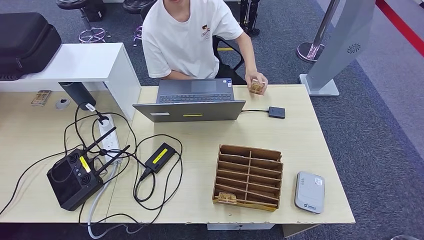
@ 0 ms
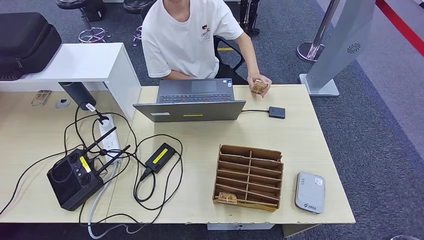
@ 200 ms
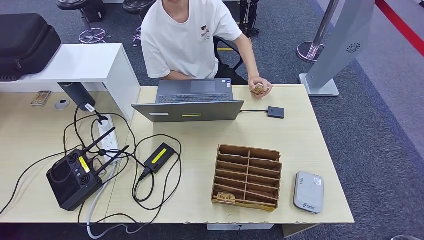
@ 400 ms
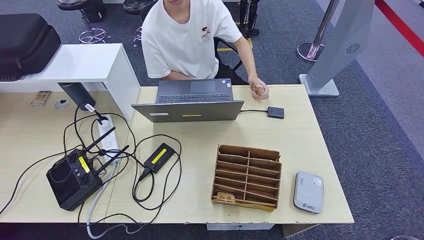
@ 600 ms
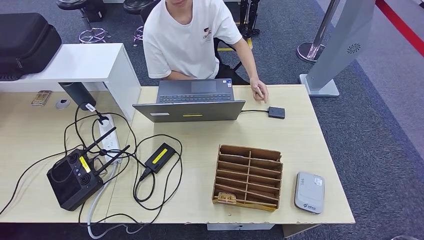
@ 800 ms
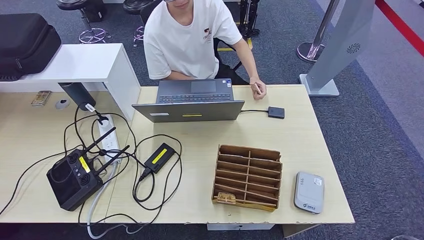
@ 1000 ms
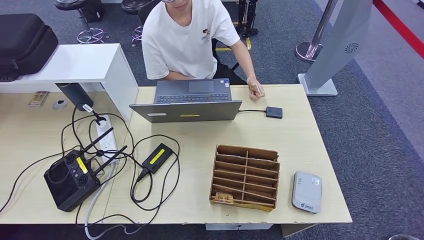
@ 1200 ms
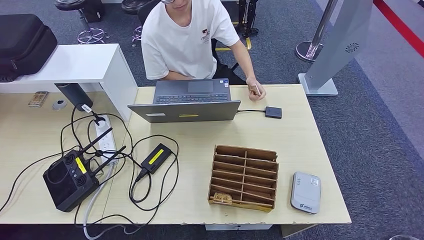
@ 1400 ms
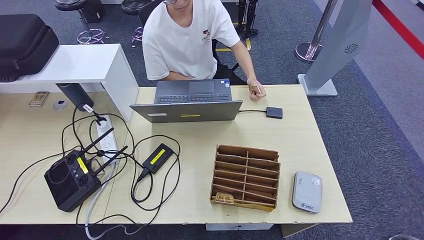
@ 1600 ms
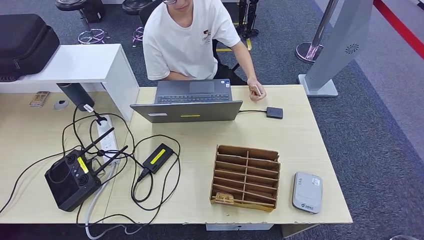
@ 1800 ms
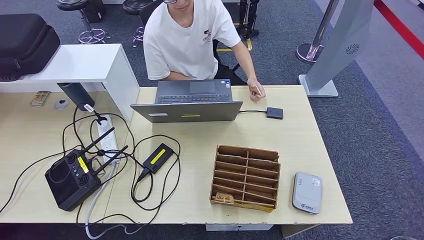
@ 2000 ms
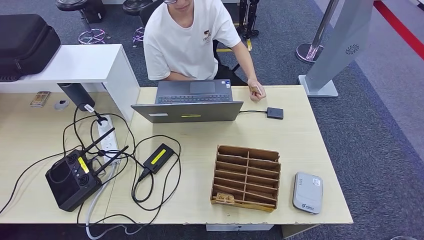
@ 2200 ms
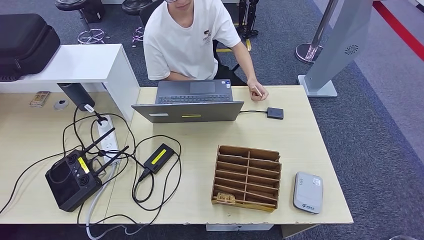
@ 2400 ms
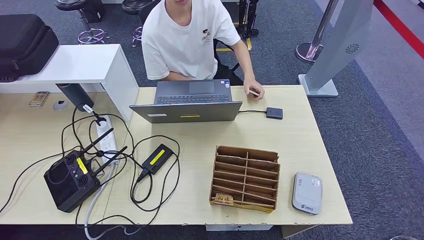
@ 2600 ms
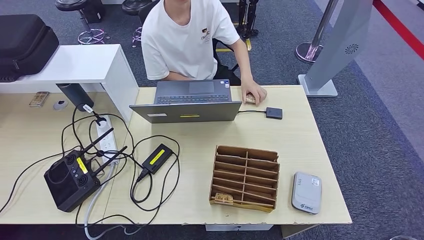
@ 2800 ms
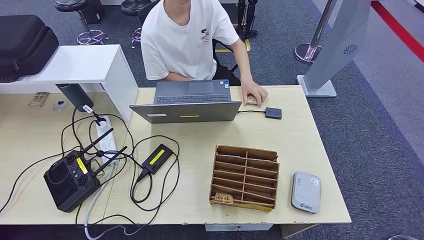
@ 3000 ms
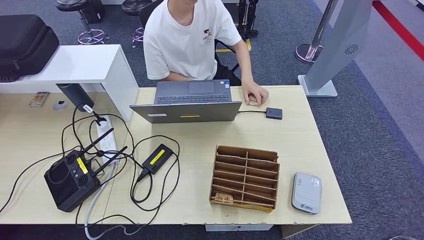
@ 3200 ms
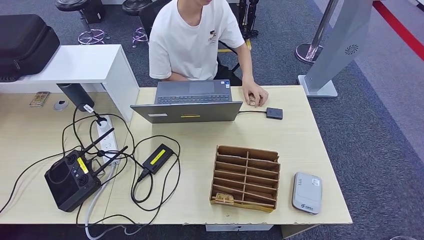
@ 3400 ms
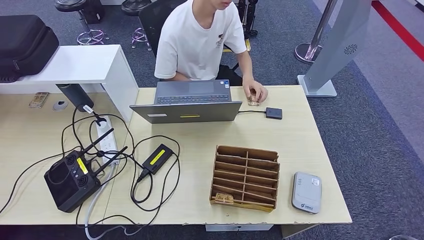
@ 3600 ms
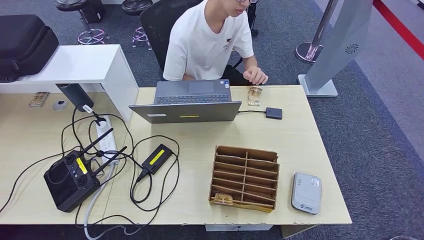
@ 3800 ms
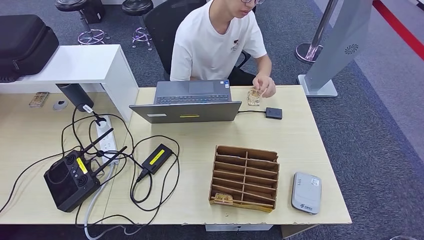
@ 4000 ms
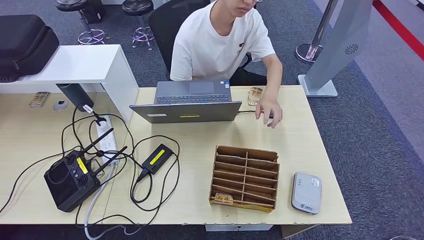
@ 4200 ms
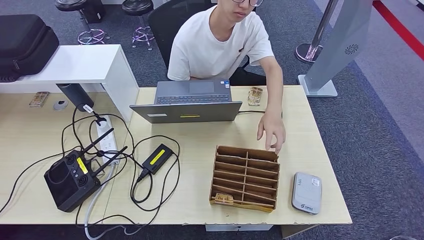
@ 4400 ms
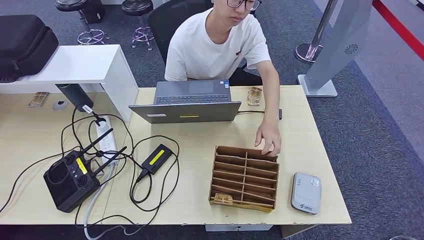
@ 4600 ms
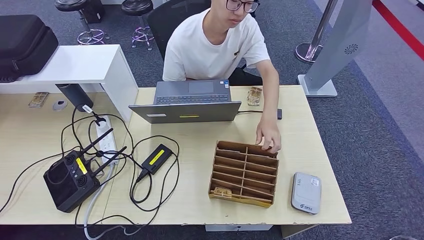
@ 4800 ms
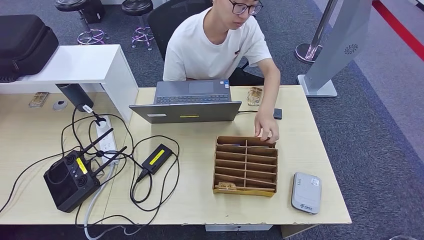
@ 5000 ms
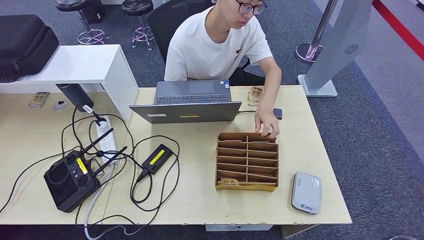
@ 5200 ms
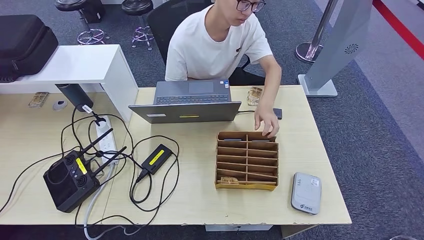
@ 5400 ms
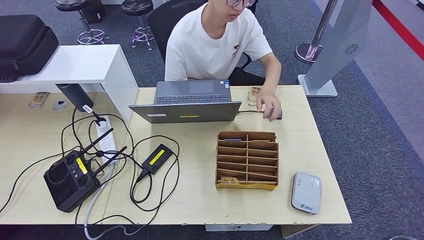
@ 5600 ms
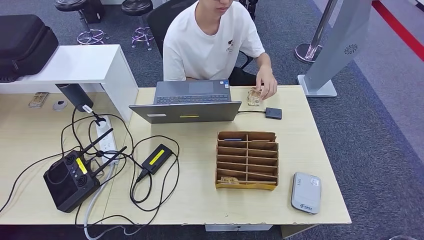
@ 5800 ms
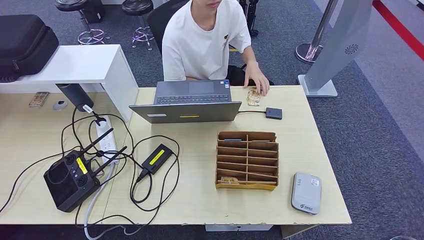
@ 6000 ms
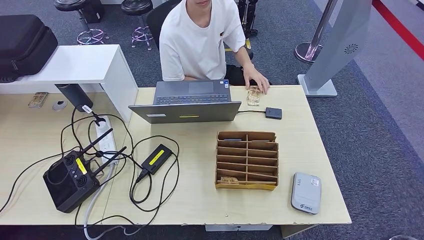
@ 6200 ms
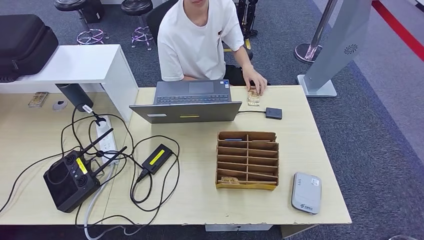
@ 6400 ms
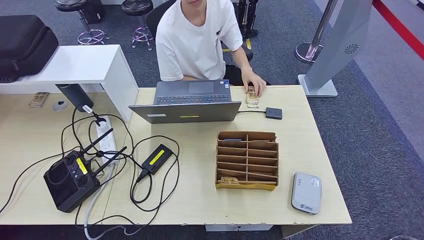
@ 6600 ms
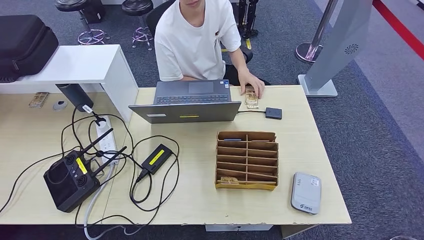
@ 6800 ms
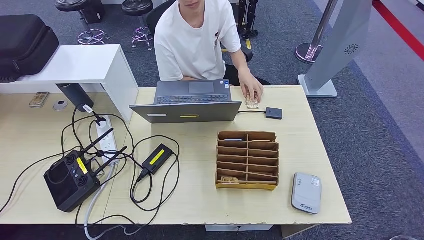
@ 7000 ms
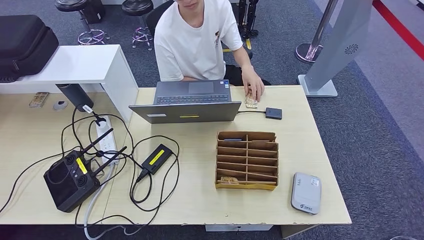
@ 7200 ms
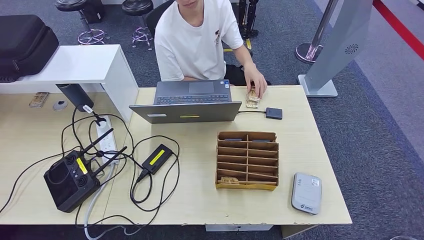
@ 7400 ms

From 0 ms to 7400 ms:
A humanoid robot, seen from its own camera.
Step, from 0 ms to 7400 ms: Hand the room key to the person.
From 0 ms to 1400 ms: The right hand moves to the left, some 5 cm; the left hand moves backward, roughly 5 cm, and reaches some 10 cm to the right, then returns.
From 1400 ms to 3000 ms: The left hand moves left and right over about 15 cm, changing direction 2 times.
